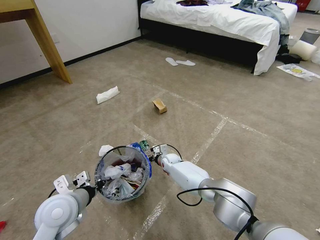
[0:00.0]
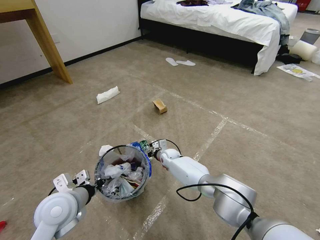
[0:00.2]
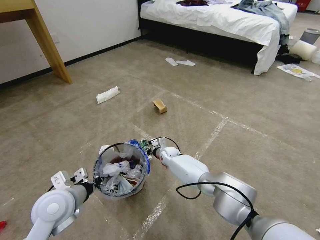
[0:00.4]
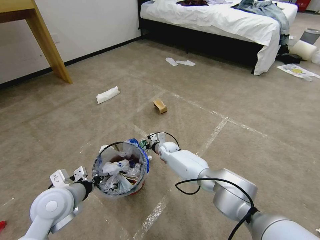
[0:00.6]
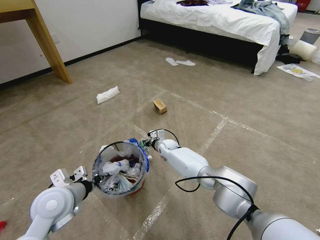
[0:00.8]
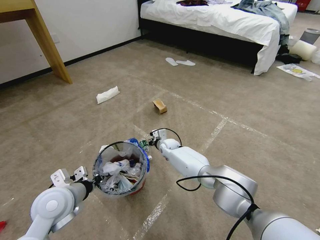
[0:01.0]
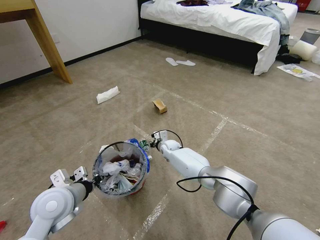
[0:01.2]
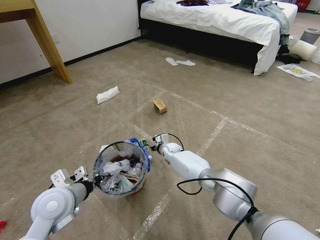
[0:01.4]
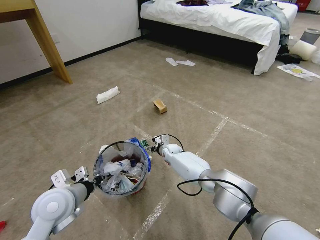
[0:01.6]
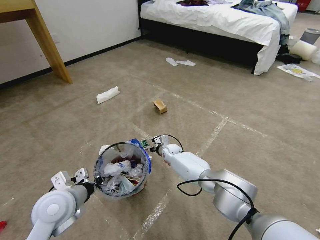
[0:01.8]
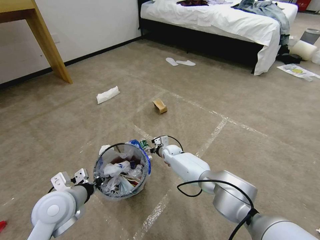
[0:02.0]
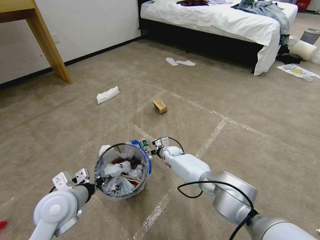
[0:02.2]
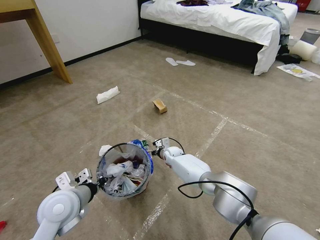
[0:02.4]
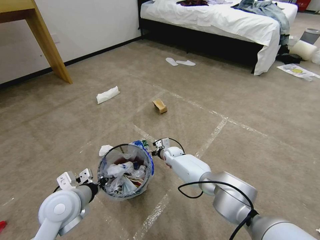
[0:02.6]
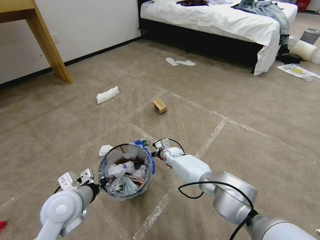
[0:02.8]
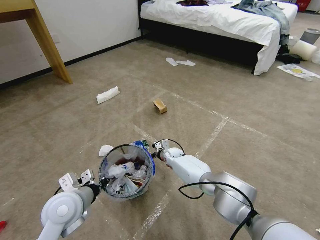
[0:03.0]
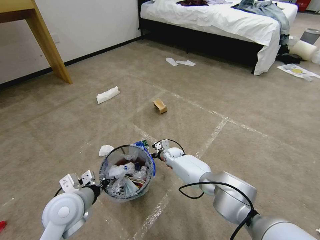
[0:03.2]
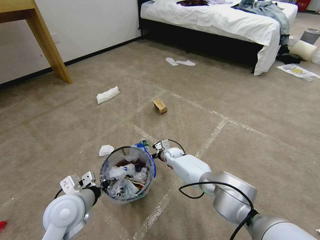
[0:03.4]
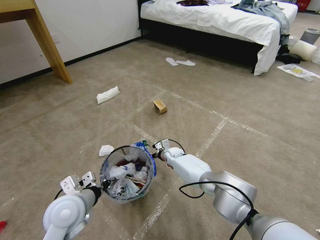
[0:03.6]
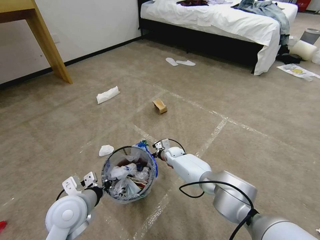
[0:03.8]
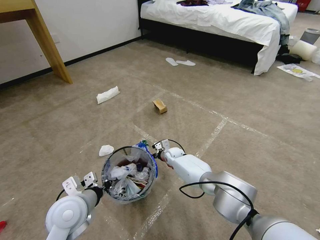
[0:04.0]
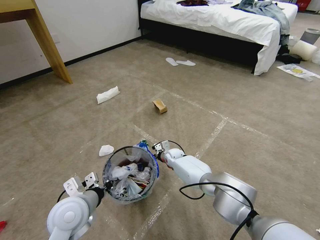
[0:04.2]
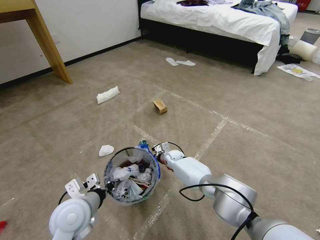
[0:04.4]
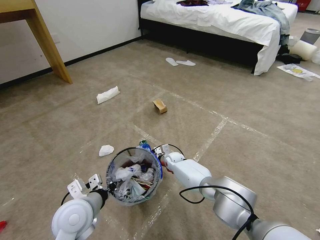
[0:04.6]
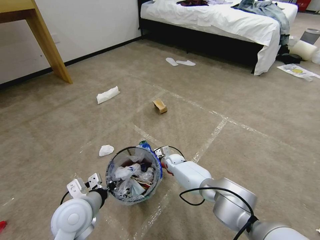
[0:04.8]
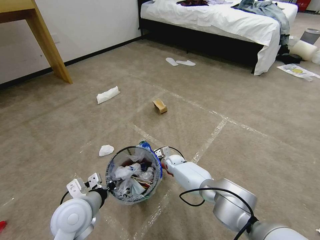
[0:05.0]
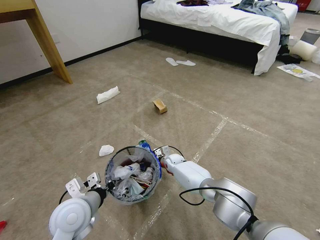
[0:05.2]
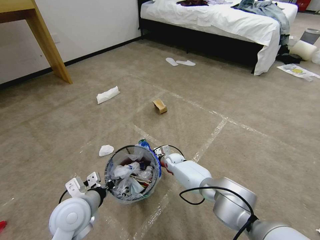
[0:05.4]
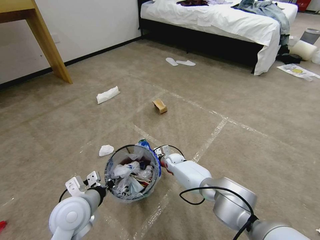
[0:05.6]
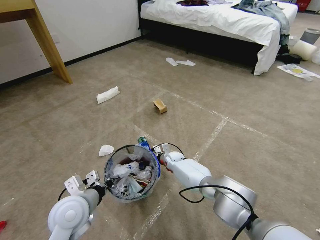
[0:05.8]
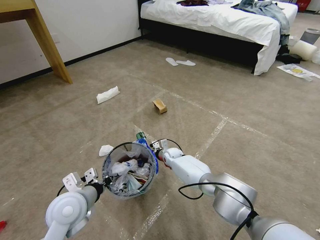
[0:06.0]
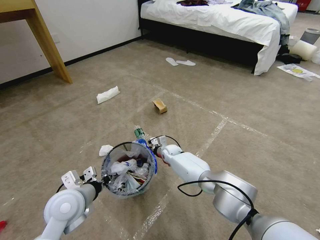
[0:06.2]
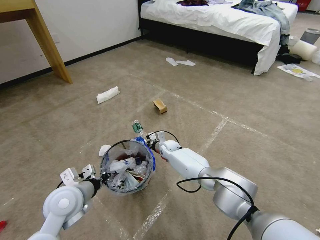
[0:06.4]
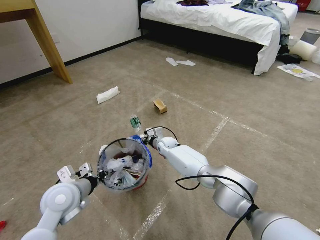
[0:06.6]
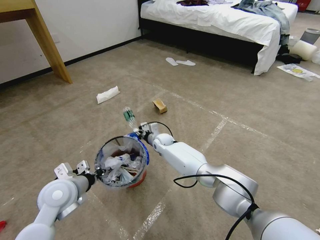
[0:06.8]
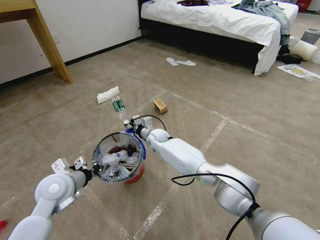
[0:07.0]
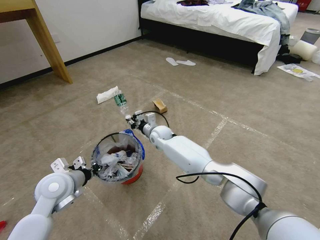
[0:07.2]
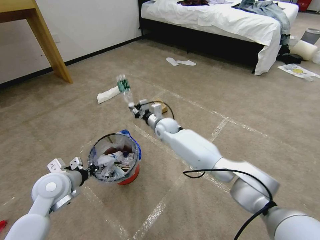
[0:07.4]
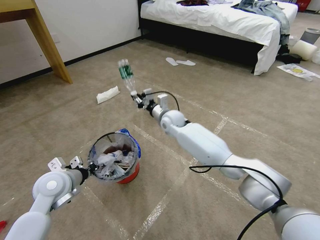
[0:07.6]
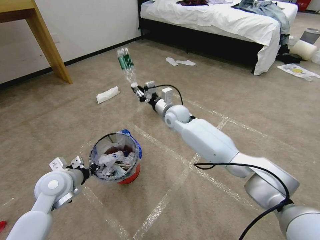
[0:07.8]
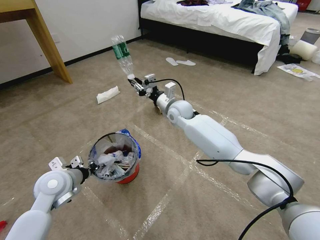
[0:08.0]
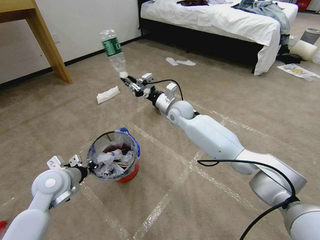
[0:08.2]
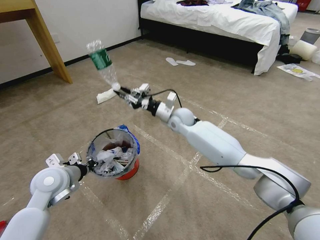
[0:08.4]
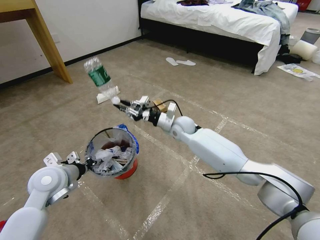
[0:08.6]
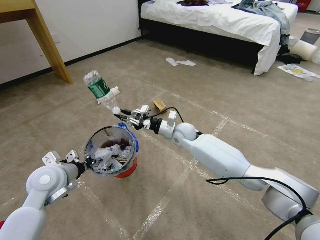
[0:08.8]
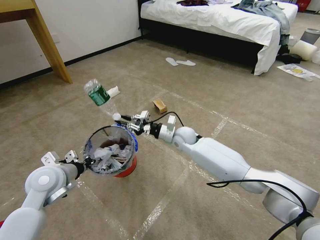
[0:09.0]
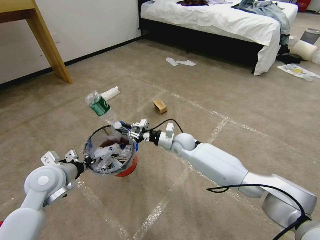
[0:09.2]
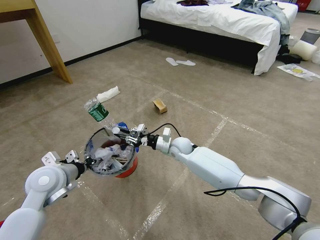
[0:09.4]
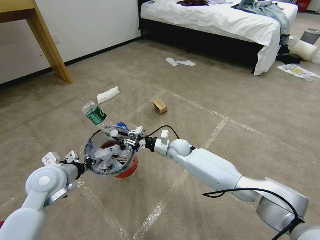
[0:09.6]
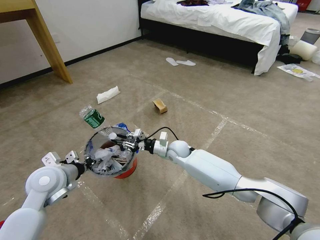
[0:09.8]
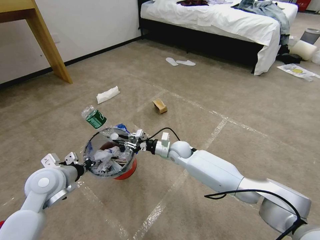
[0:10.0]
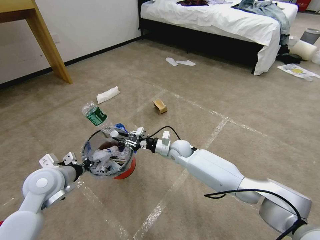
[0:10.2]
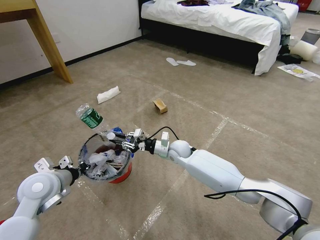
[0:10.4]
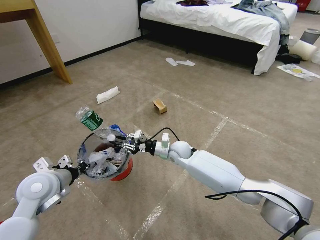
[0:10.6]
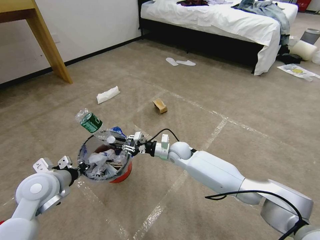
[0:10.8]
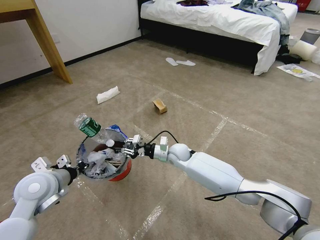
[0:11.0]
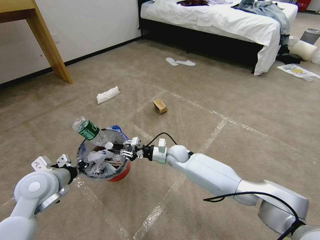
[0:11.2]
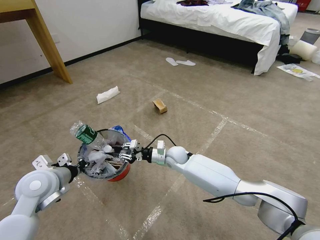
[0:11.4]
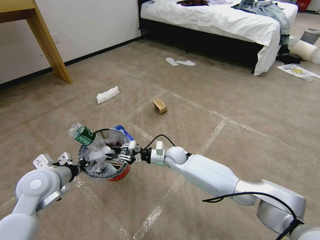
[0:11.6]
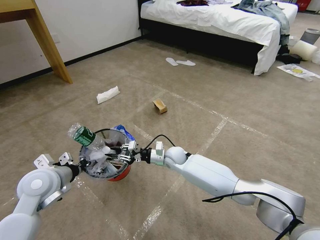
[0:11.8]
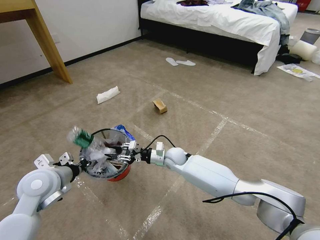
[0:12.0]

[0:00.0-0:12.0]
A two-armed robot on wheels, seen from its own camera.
Task of the whole recording: Pick up the trash bin and place the garbage on the floor into it.
0:00.0 to 0:01.6: The right gripper opens its fingers.
0:01.6 to 0:03.0: The grippers move only a little.
0:03.0 to 0:04.4: The right gripper closes.
0:04.4 to 0:06.0: The grippers make only small movements.
0:06.0 to 0:07.6: The left gripper is displaced to the left and forward by some 10 cm. The right gripper travels upward by approximately 20 cm.
0:07.6 to 0:09.0: The right gripper heads to the right, covering approximately 5 cm.
0:09.0 to 0:10.4: The right gripper shifts by about 5 cm.
0:10.4 to 0:12.0: The grippers make only small movements.

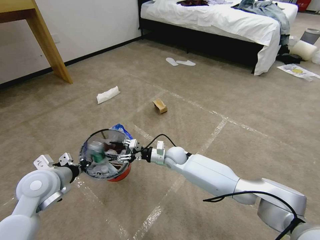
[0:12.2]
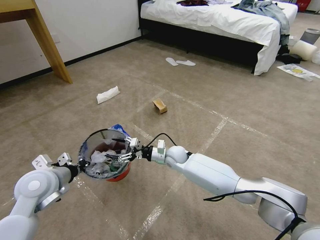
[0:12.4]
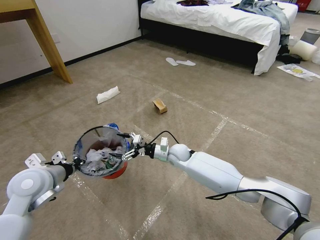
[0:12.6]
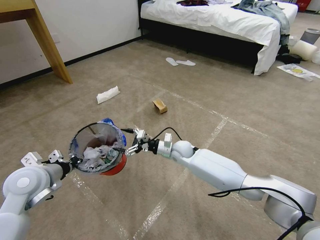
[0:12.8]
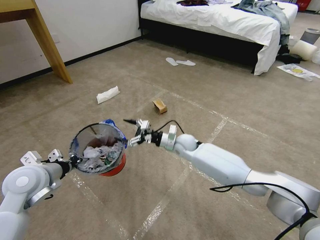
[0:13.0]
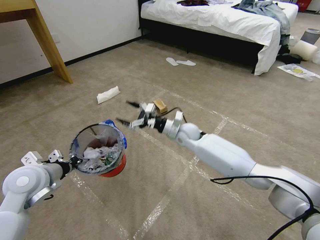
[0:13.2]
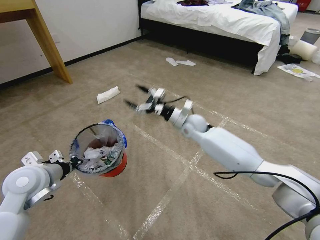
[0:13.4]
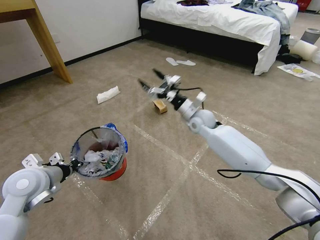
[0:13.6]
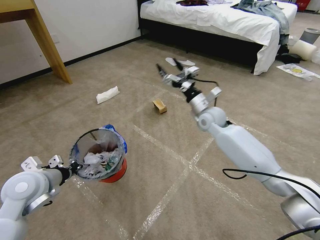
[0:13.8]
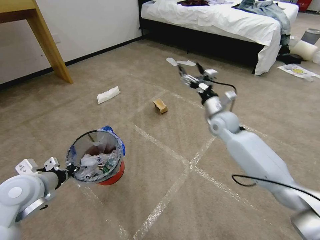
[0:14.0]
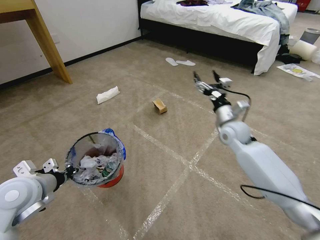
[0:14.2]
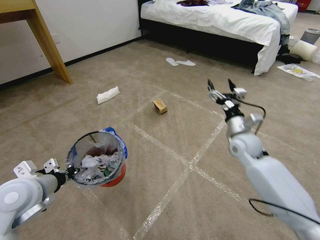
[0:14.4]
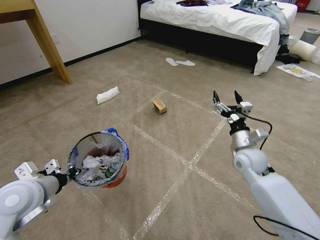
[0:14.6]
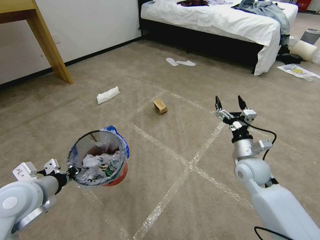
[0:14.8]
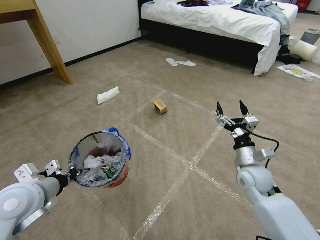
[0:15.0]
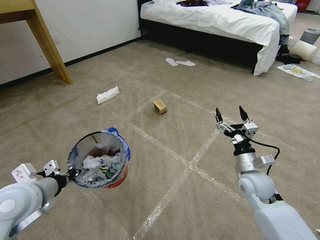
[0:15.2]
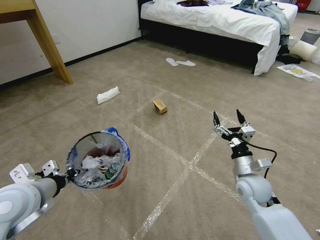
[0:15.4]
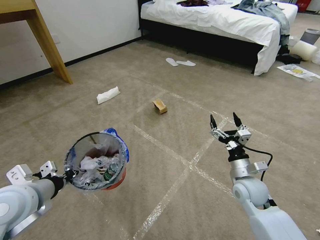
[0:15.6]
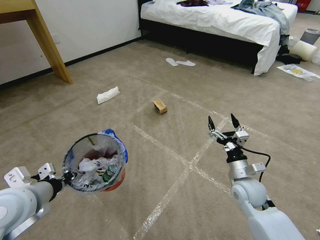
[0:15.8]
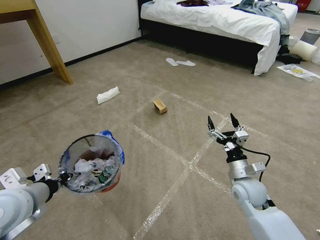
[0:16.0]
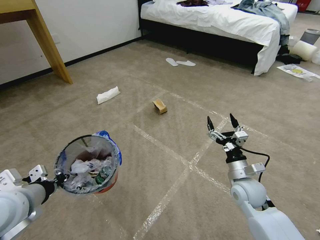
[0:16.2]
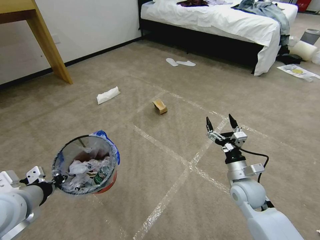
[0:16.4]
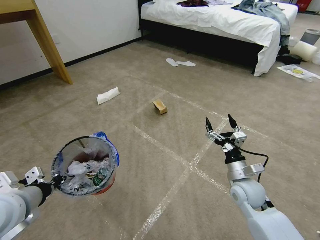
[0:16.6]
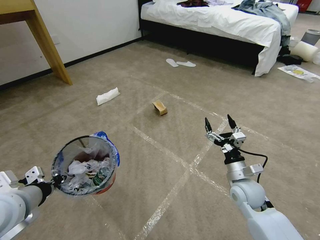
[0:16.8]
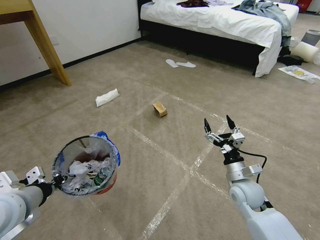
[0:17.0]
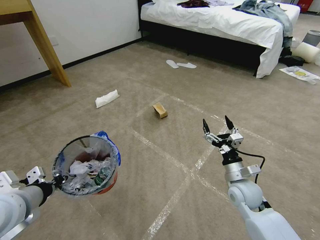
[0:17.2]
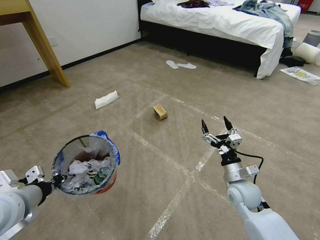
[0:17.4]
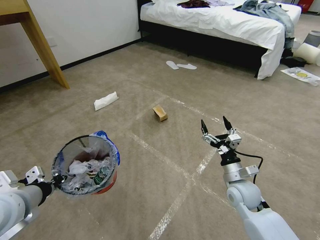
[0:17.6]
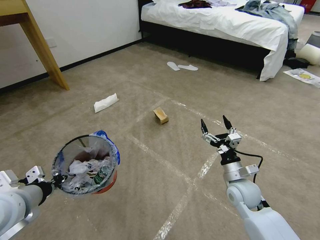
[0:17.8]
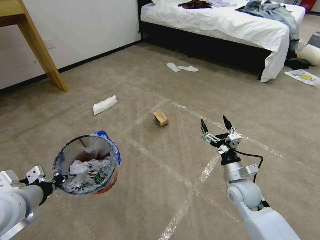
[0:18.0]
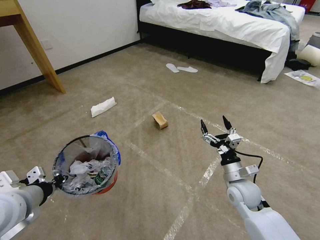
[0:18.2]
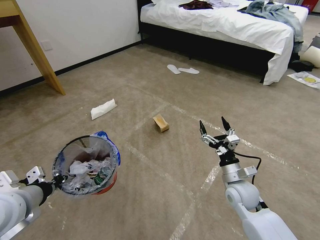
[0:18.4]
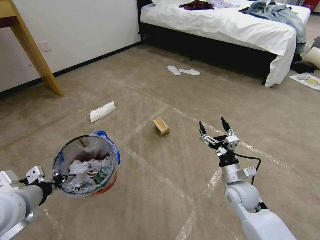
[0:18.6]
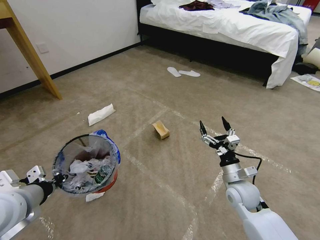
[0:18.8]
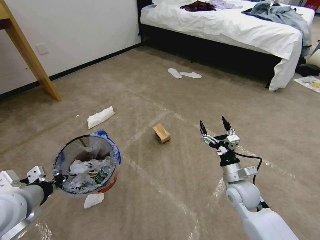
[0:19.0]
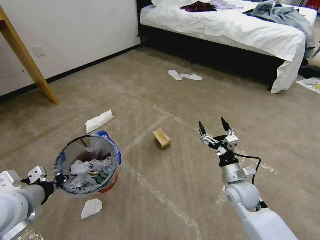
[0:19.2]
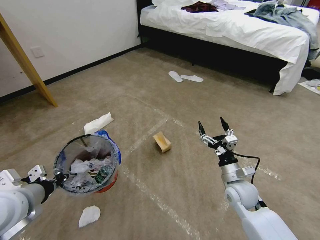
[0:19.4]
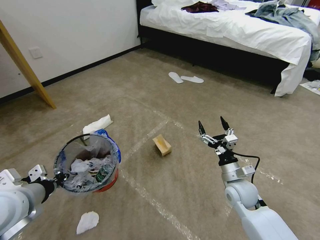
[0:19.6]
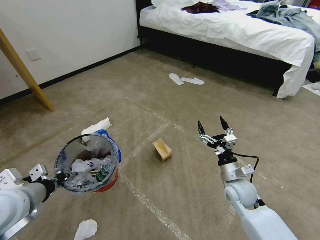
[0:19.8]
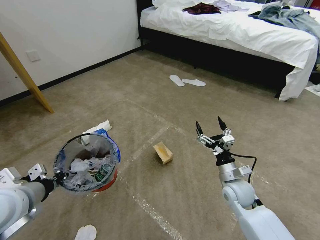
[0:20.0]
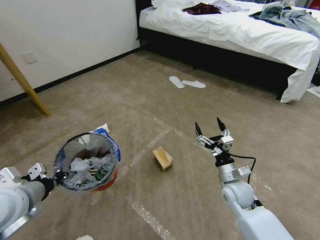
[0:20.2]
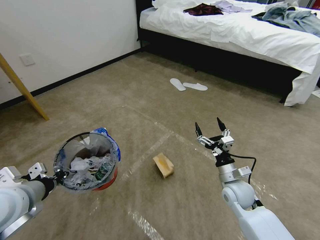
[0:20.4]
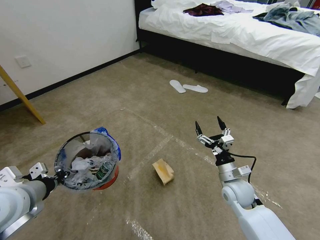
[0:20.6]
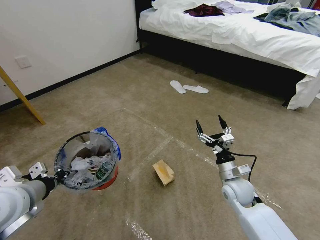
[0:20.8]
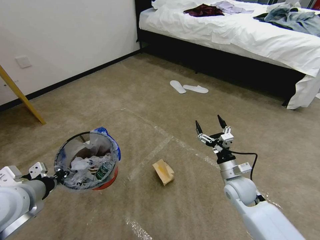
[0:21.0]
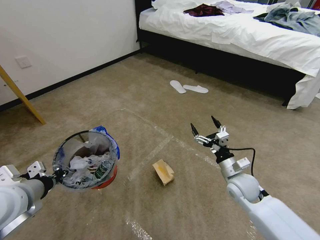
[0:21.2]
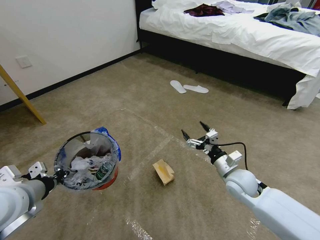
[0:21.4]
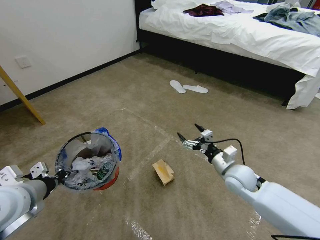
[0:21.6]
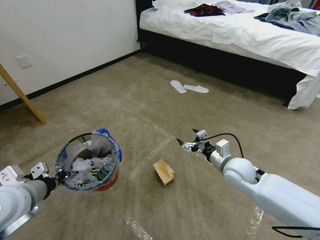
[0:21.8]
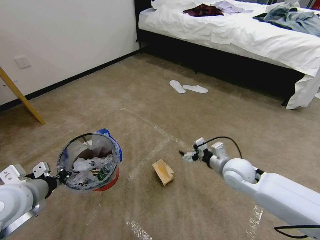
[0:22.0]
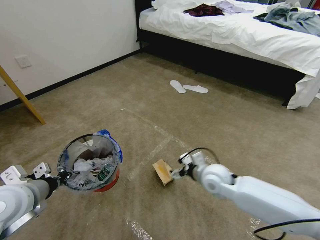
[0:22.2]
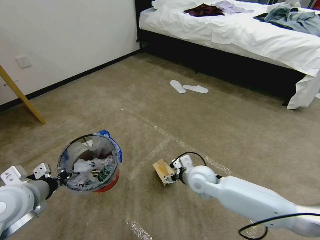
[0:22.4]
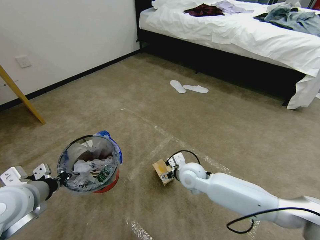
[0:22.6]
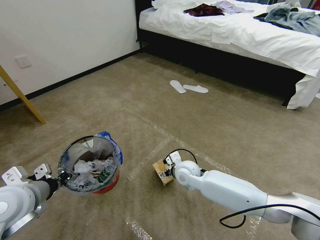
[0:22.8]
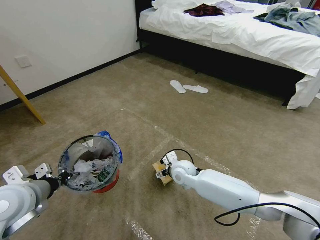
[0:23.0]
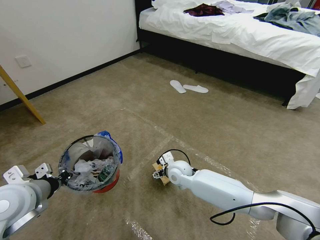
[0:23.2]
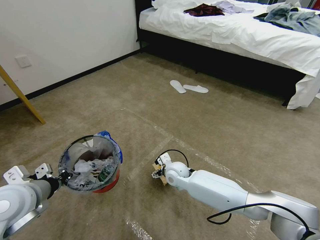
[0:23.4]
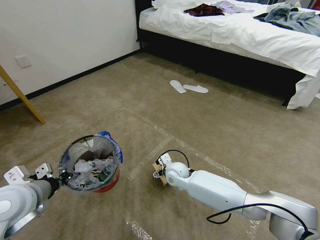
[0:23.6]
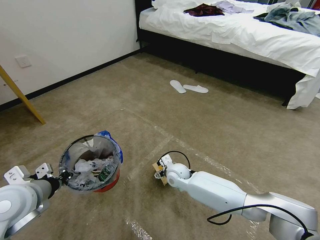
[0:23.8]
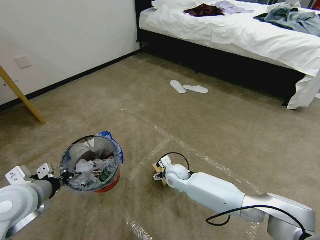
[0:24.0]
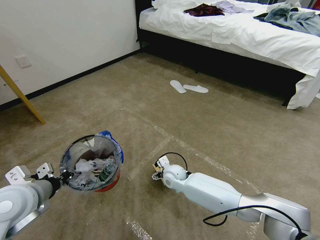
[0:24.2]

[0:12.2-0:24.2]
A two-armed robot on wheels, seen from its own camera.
Task of the whole recording: Pick up the trash bin and place the garbage on the floor into it.
0:12.2 to 0:13.8: The right gripper shifts about 20 cm upward and to the right.
0:13.8 to 0:15.2: The right gripper shifts roughly 25 cm backward, to the right and downward; the left gripper moves some 5 cm.
0:15.2 to 0:16.6: The grippers move only a little.
0:21.2 to 0:22.6: The right gripper goes roughly 15 cm to the left.
0:22.6 to 0:24.2: The right gripper is displaced downward by some 5 cm.
